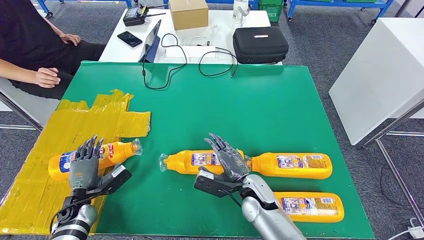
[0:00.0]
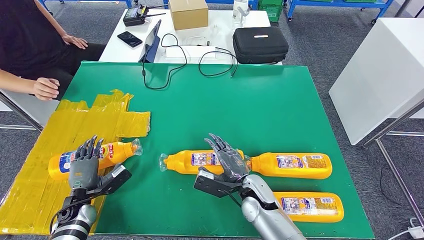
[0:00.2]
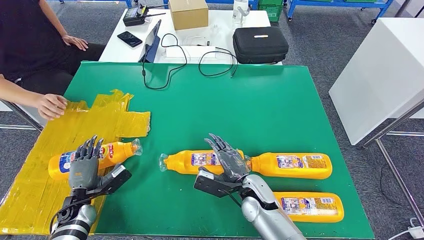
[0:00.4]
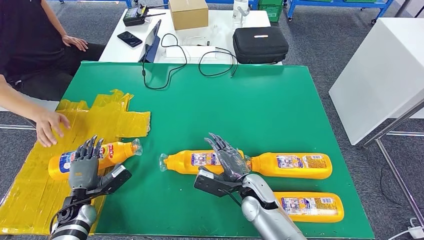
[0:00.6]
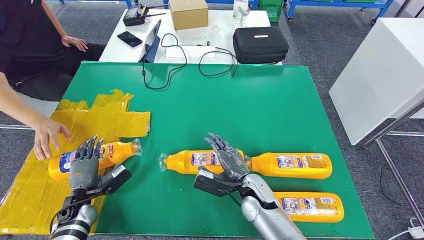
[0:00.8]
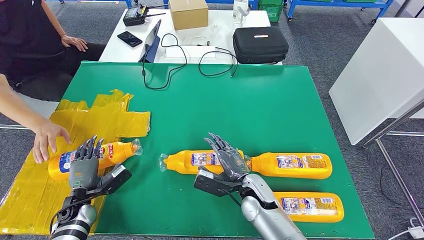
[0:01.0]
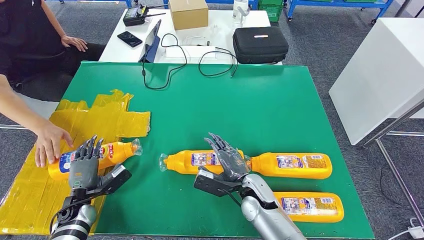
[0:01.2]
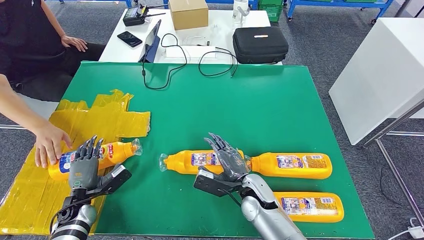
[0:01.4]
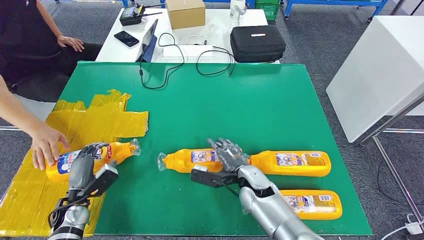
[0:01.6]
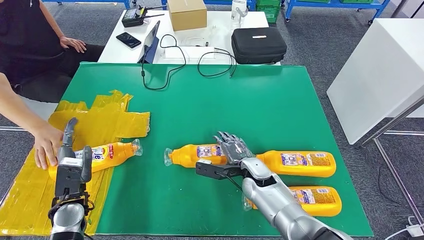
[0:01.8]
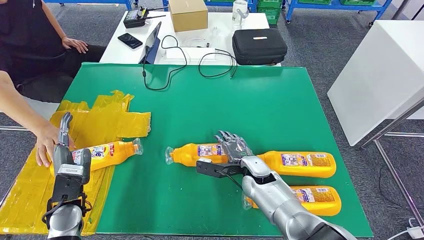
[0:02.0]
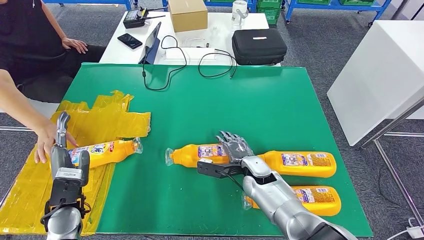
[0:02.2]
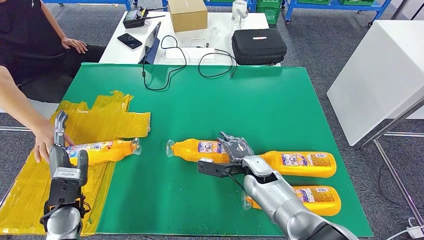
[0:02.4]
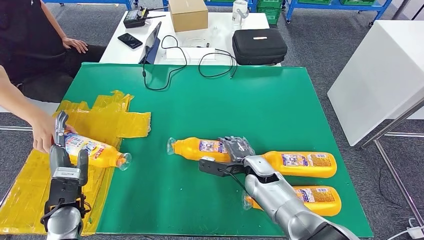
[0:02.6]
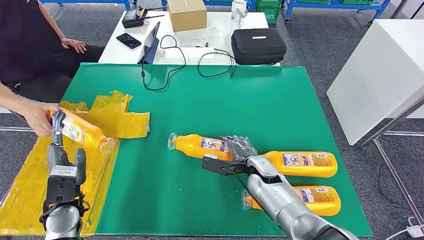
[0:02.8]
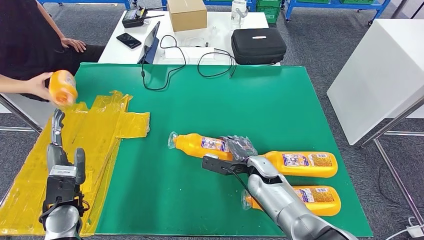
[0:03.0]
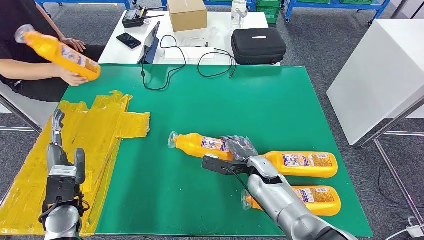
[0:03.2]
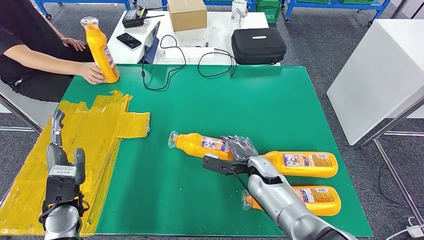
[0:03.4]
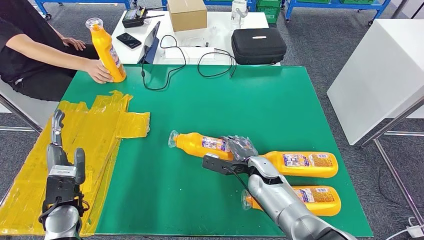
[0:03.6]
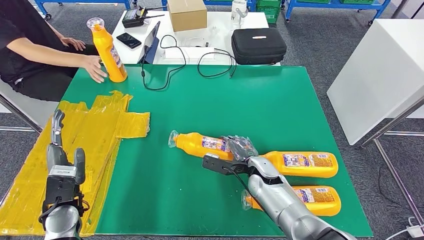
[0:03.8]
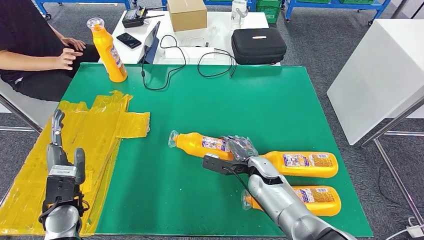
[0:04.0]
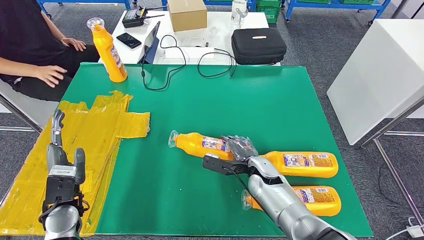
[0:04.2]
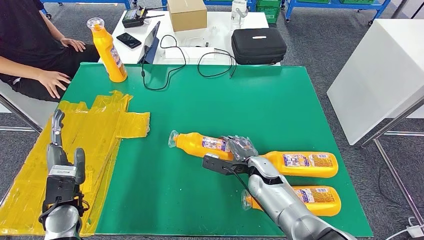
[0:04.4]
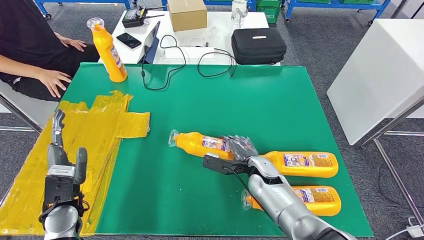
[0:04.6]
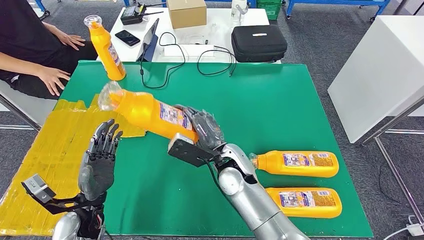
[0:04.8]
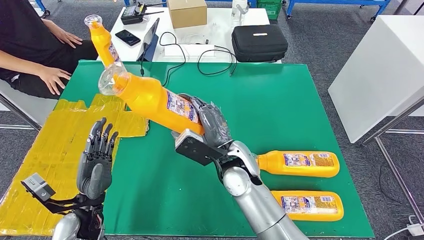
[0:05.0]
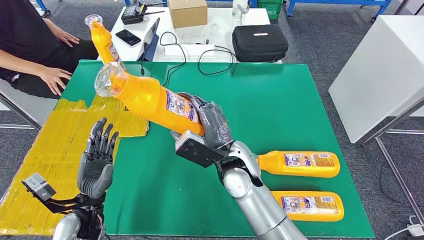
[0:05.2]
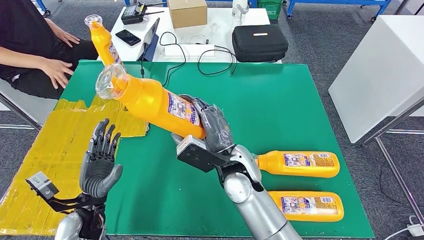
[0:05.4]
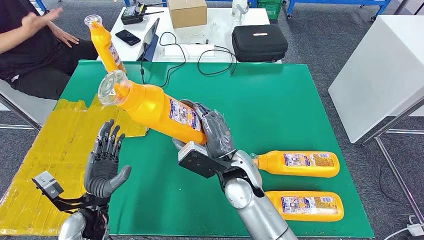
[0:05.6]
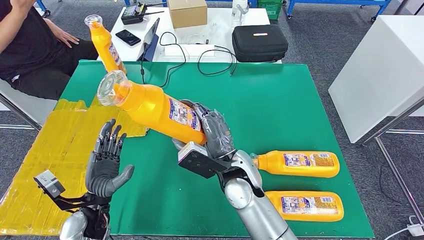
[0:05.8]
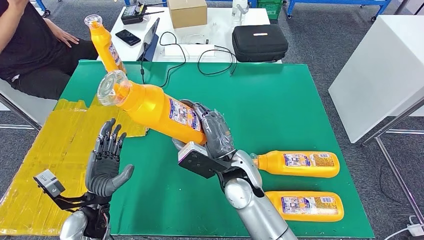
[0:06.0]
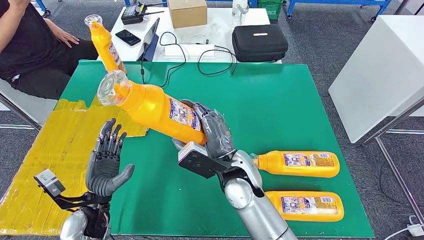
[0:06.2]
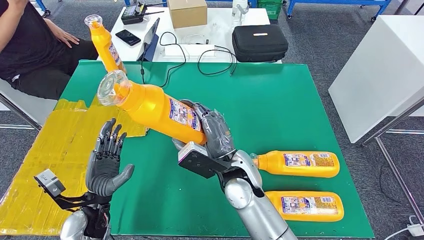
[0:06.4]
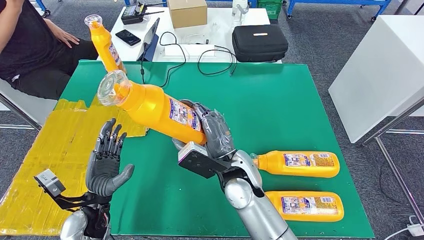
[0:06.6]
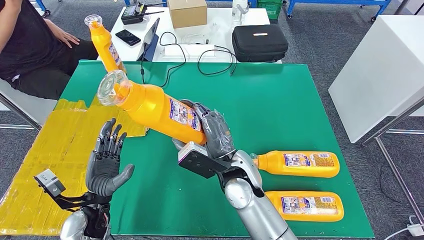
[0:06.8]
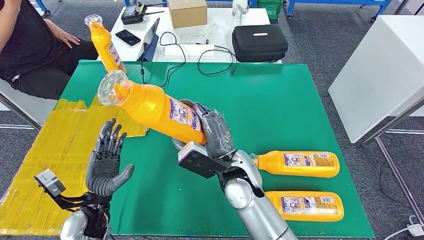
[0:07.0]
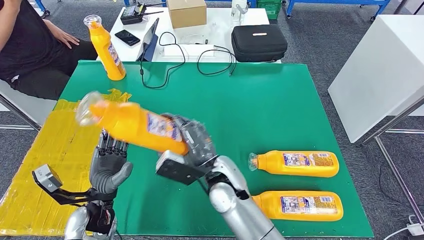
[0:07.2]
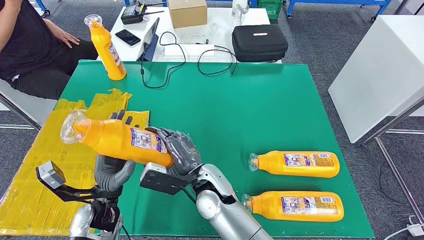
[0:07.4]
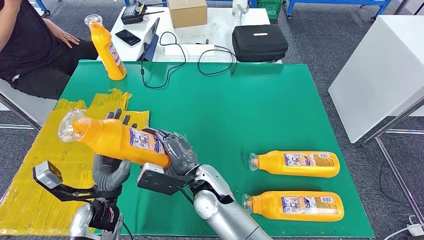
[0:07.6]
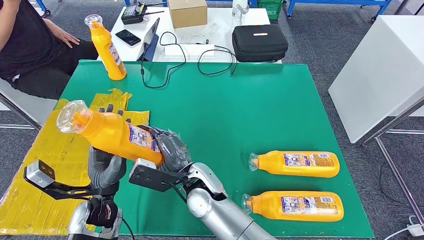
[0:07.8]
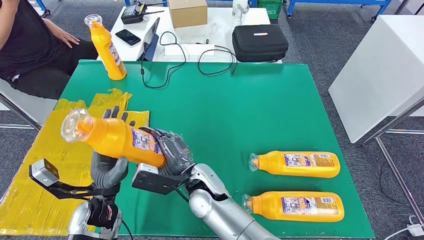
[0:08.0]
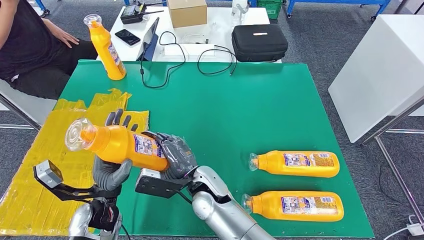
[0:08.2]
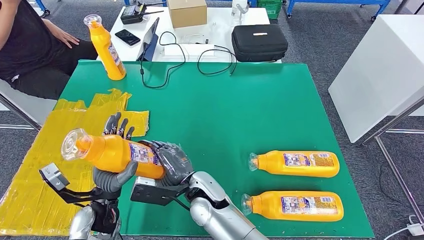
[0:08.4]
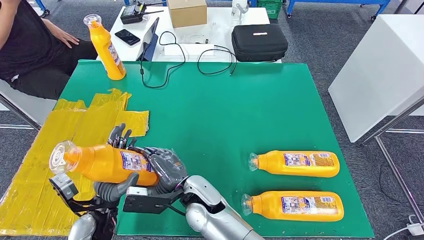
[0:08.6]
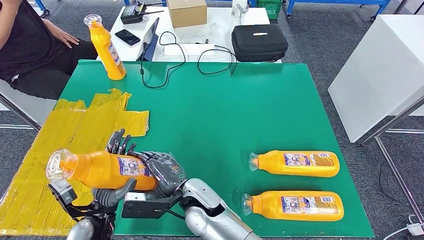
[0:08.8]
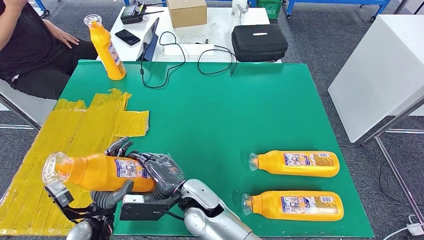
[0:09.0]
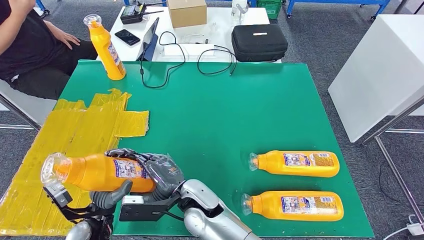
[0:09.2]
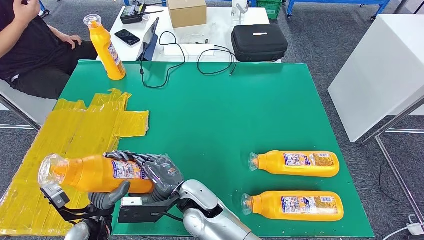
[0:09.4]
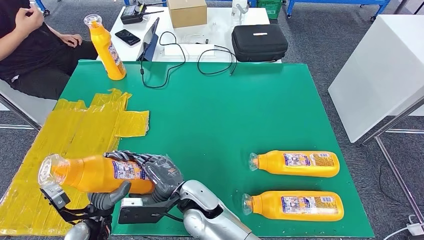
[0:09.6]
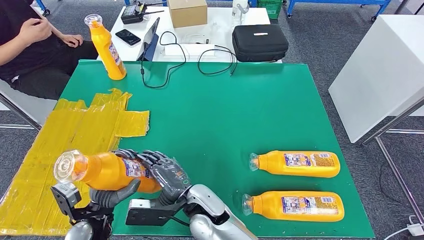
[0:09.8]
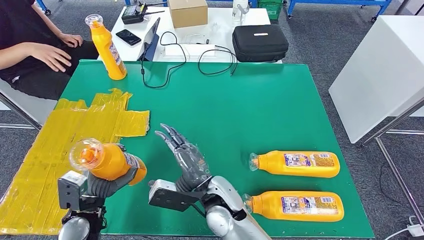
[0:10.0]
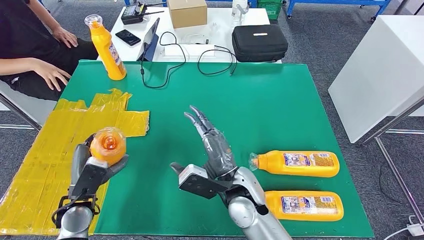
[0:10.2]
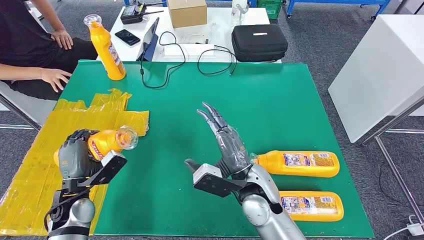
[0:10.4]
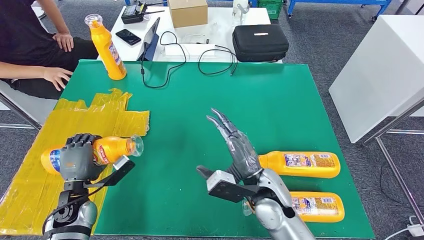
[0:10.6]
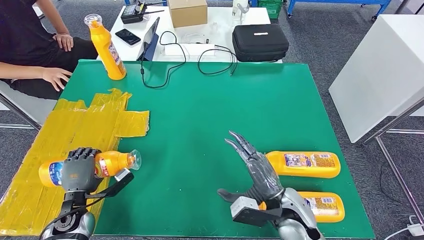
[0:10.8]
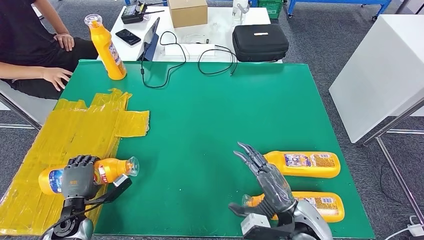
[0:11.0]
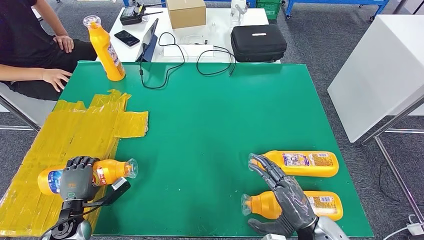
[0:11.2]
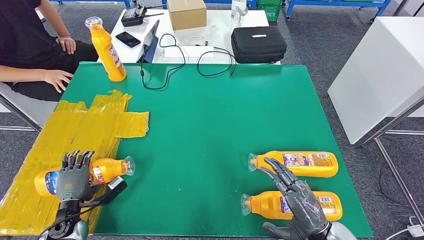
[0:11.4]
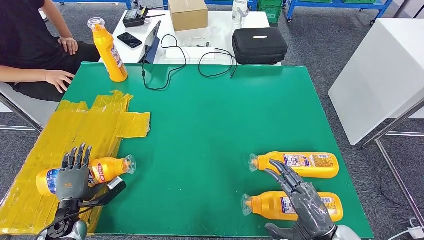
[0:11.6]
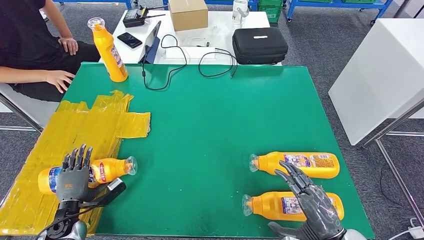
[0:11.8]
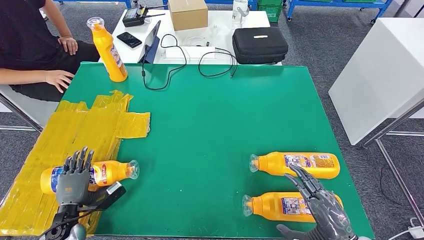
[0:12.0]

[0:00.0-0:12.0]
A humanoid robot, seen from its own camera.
Step, 0:00.0 to 0:09.6: Pick up the bottle from the table.
0:03.0 to 0:04.4: Neither hand changes place.
0:06.0 to 0:07.6: The right hand moves to the left, about 5 cm.
0:07.6 to 0:09.0: The right hand moves roughly 5 cm. Meanwhile the left hand changes place by approximately 5 cm.
0:09.0 to 0:10.4: The right hand heads to the right, covering some 15 cm. The left hand is displaced to the left and forward by about 10 cm.

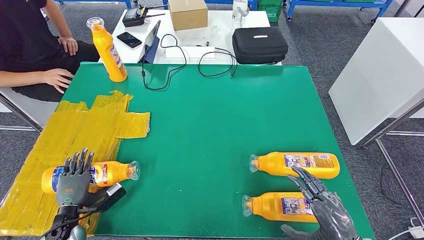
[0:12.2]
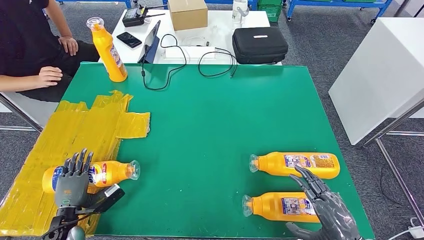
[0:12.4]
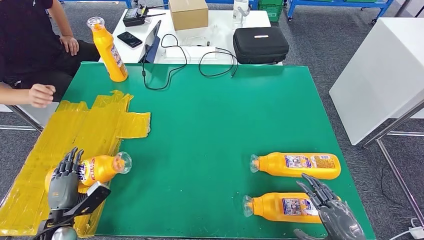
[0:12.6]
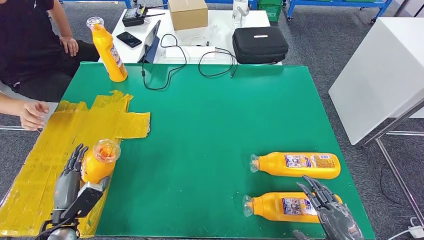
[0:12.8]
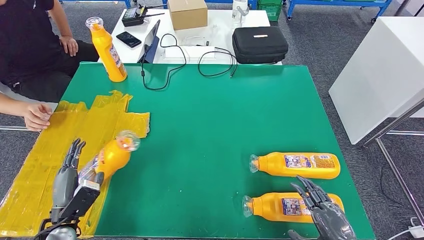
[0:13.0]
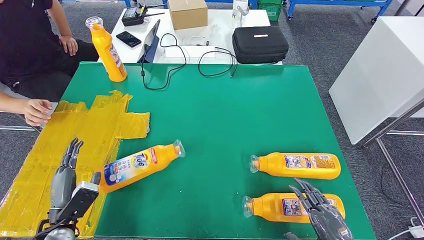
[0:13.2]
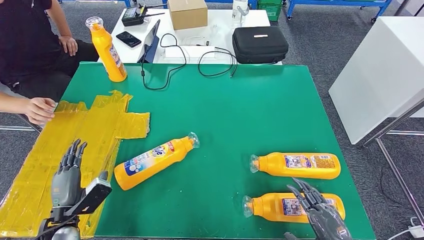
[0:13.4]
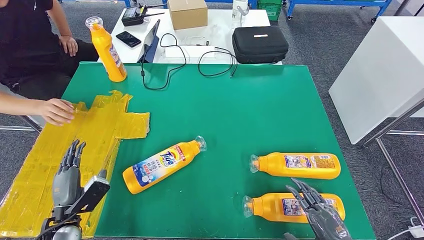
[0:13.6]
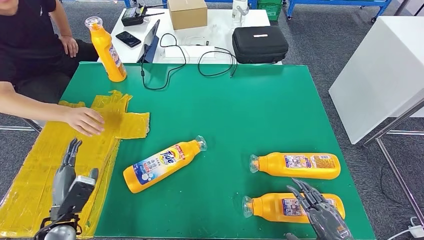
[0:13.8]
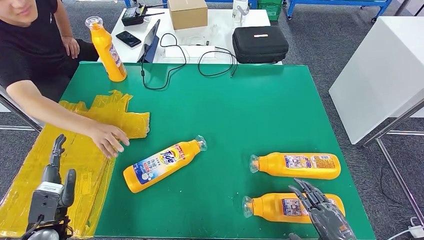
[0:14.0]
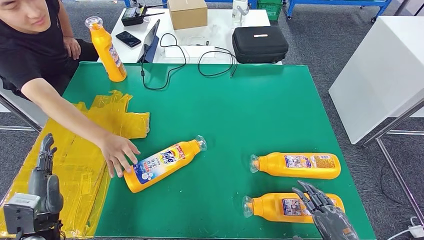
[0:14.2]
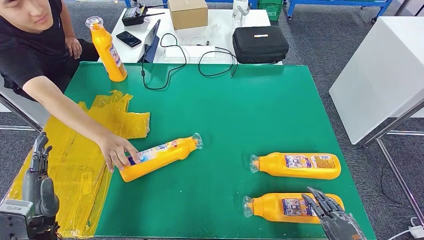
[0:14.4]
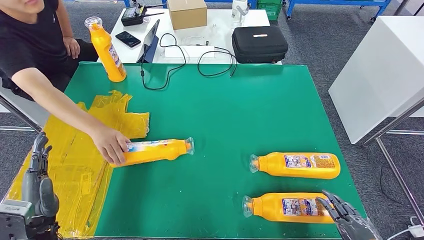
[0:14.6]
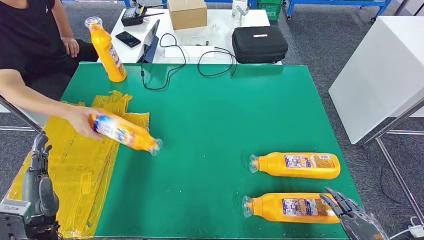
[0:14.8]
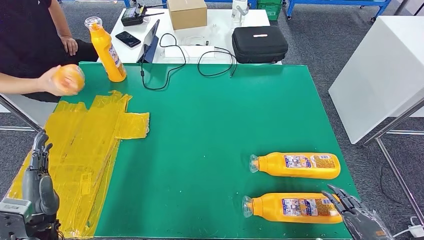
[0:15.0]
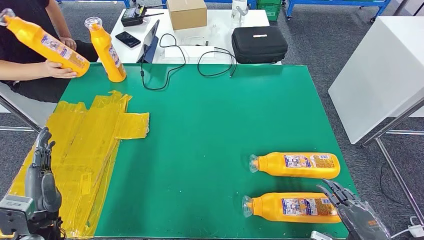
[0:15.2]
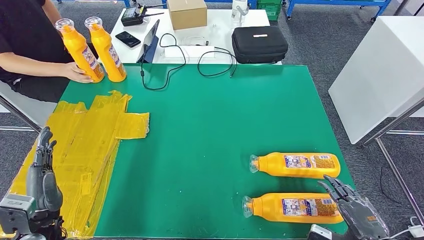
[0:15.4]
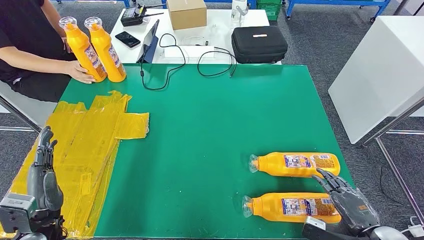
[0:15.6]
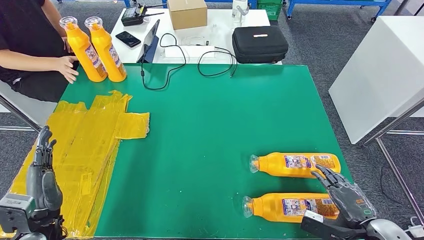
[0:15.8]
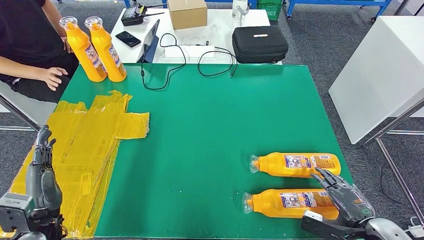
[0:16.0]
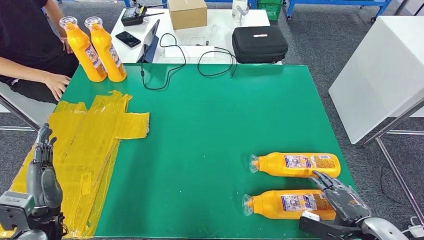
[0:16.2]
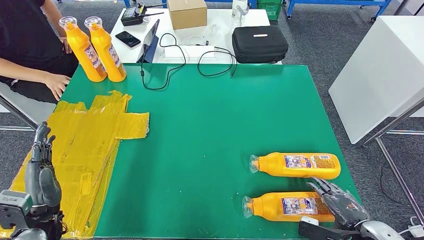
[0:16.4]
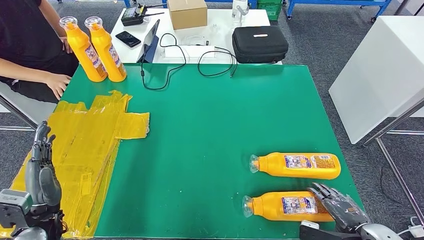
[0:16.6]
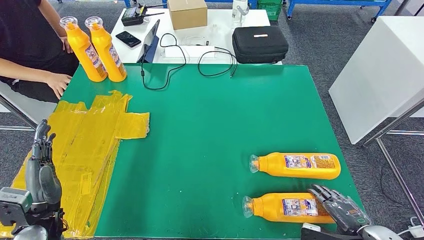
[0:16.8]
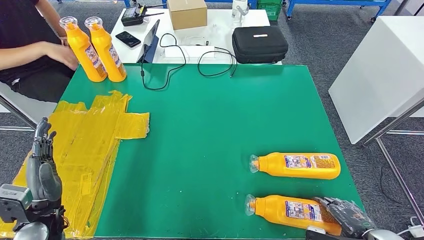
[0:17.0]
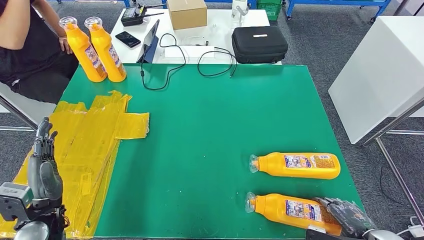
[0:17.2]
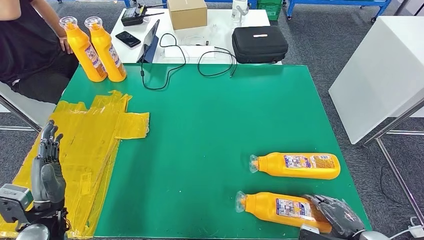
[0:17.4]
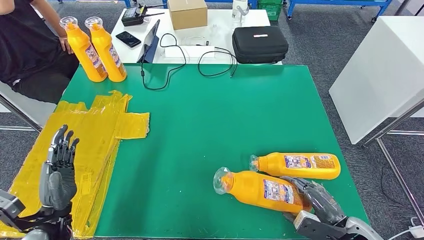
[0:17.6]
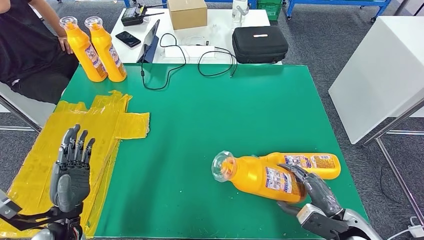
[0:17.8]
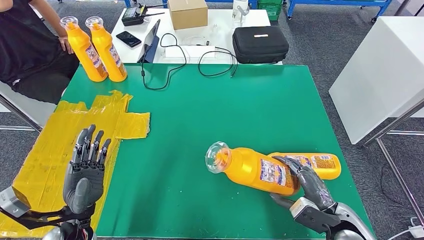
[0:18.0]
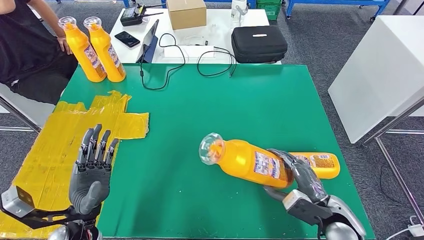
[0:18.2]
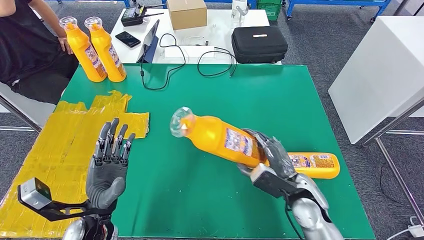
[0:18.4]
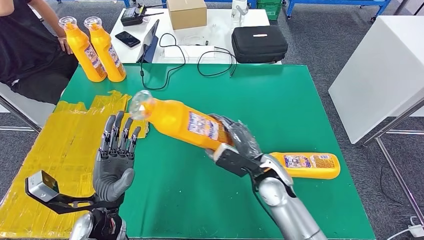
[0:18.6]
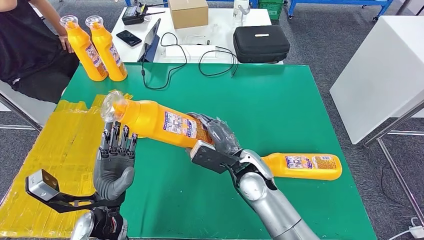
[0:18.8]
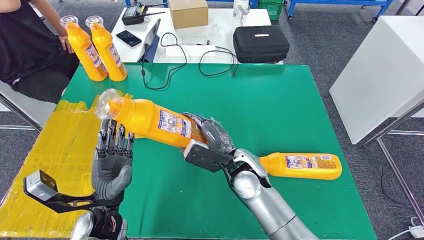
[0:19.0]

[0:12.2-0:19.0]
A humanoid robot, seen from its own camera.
0:12.2 to 0:13.6: The left hand is displaced upward by some 5 cm.
0:13.6 to 0:15.0: The right hand travels to the right by roughly 5 cm. Meanwhile the left hand moves upward, about 5 cm.
0:15.0 to 0:16.2: The right hand goes some 10 cm forward.
